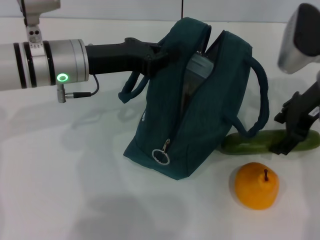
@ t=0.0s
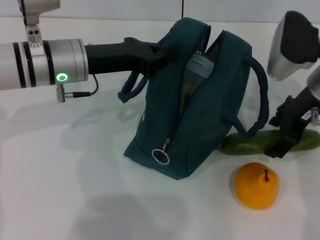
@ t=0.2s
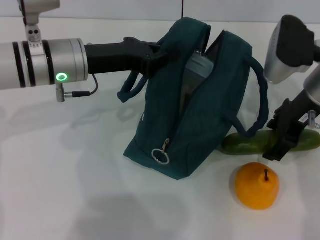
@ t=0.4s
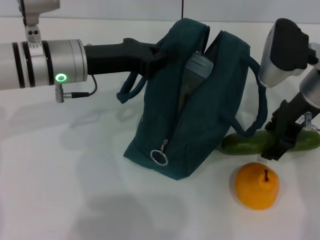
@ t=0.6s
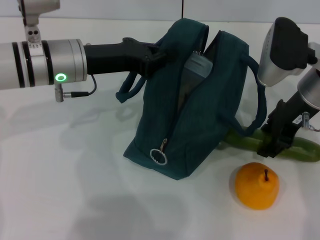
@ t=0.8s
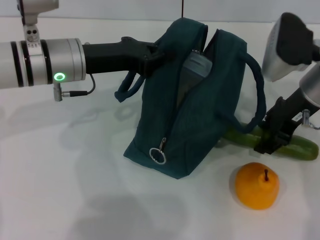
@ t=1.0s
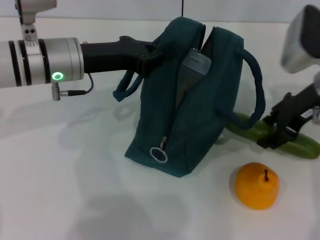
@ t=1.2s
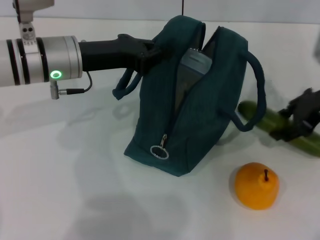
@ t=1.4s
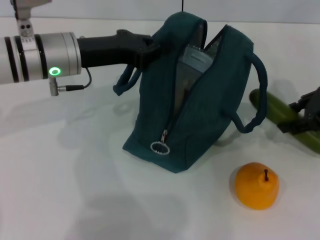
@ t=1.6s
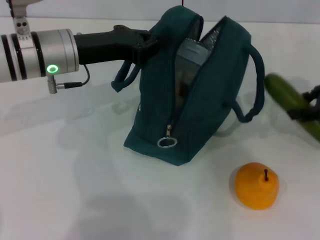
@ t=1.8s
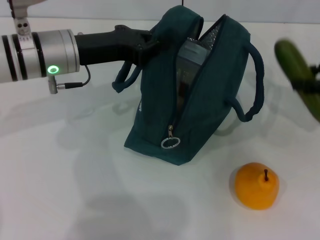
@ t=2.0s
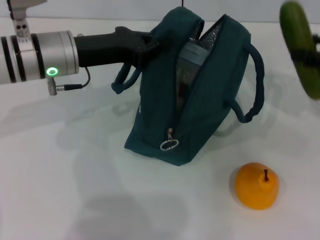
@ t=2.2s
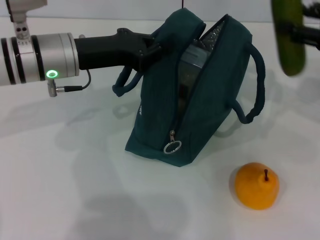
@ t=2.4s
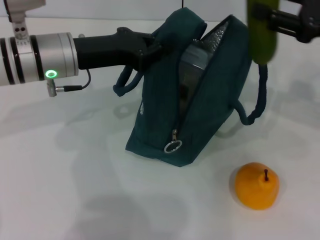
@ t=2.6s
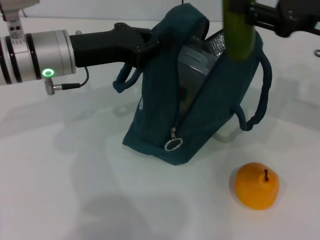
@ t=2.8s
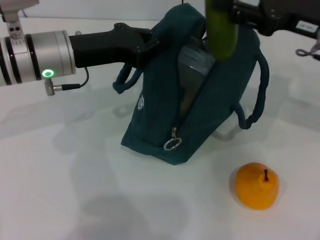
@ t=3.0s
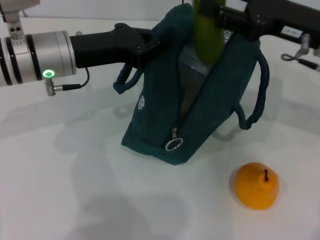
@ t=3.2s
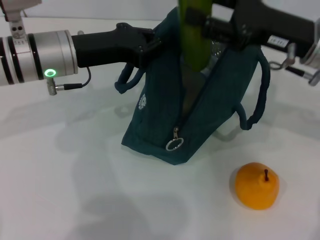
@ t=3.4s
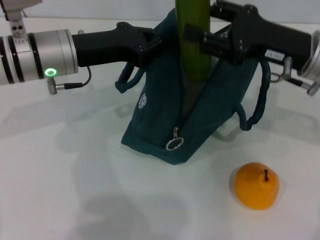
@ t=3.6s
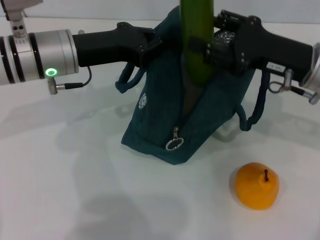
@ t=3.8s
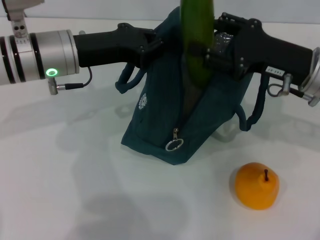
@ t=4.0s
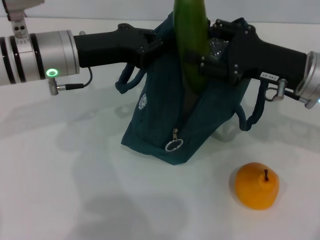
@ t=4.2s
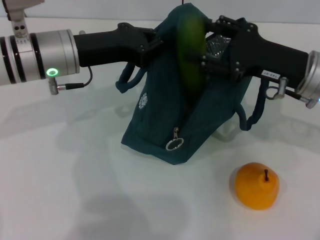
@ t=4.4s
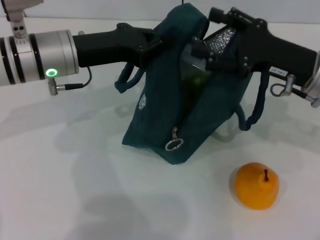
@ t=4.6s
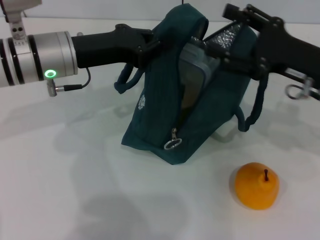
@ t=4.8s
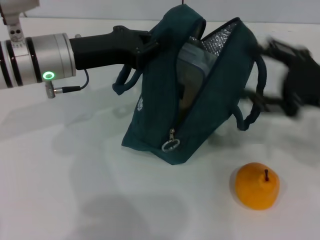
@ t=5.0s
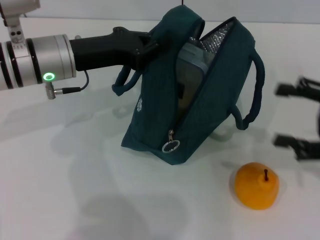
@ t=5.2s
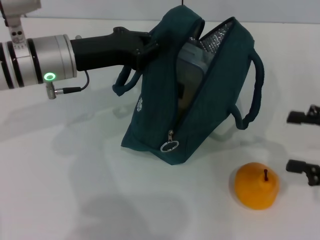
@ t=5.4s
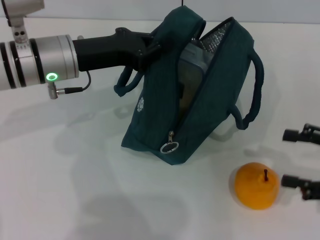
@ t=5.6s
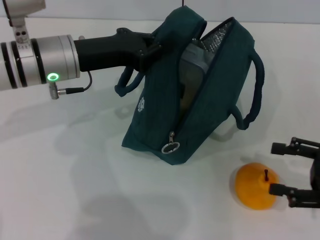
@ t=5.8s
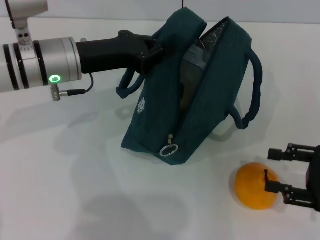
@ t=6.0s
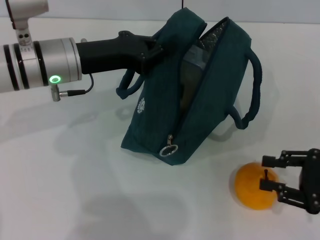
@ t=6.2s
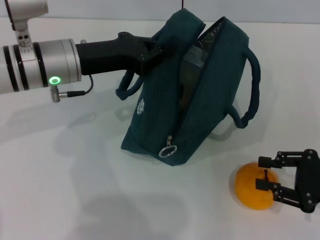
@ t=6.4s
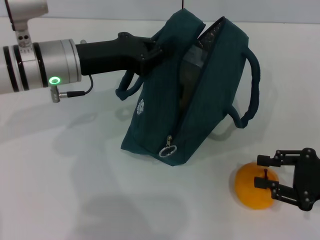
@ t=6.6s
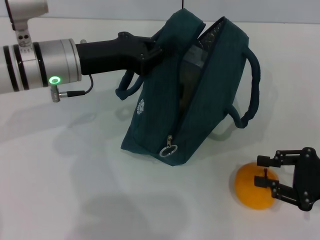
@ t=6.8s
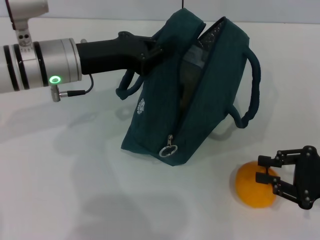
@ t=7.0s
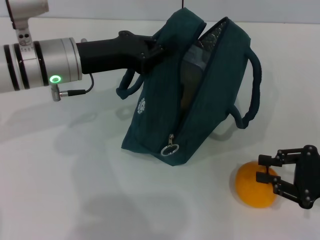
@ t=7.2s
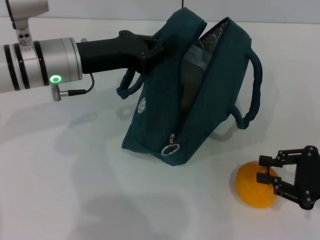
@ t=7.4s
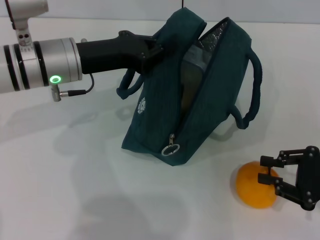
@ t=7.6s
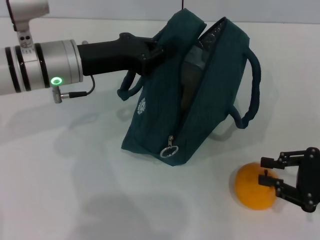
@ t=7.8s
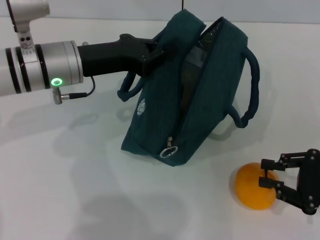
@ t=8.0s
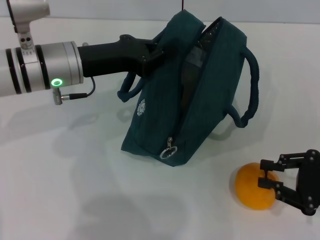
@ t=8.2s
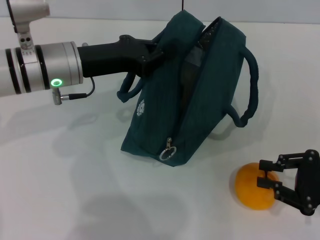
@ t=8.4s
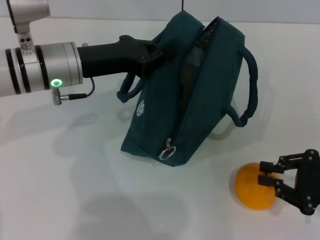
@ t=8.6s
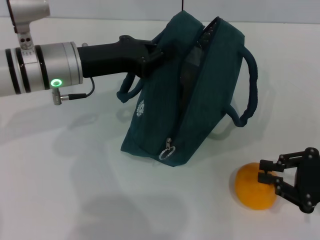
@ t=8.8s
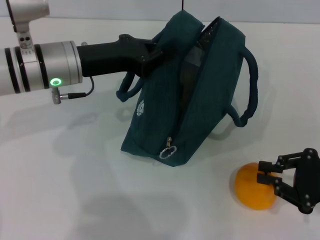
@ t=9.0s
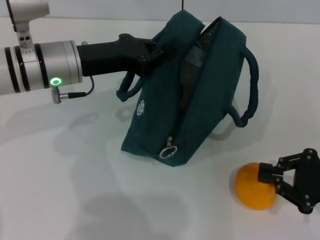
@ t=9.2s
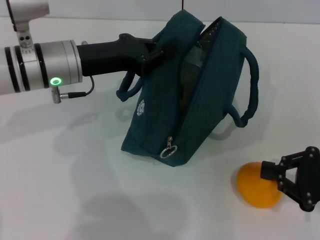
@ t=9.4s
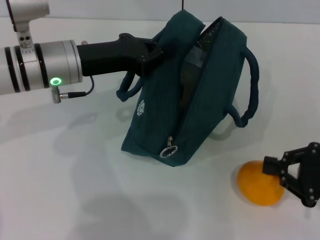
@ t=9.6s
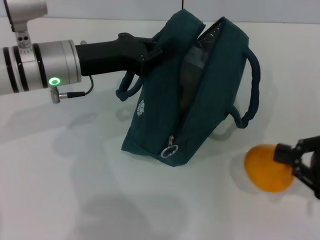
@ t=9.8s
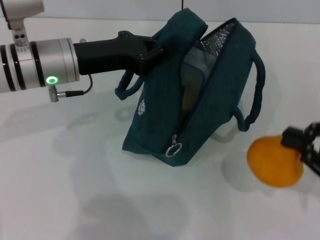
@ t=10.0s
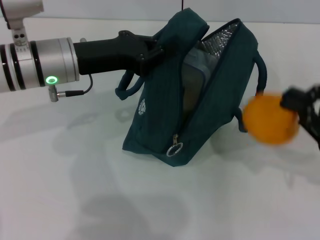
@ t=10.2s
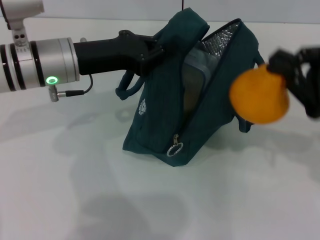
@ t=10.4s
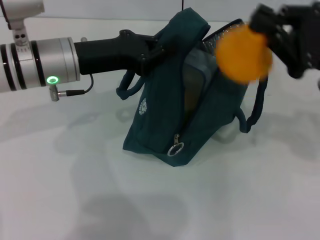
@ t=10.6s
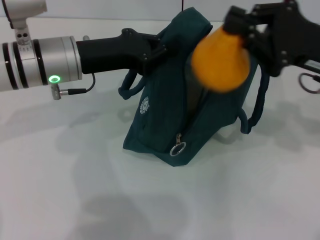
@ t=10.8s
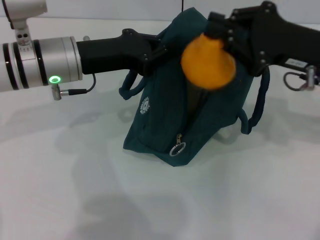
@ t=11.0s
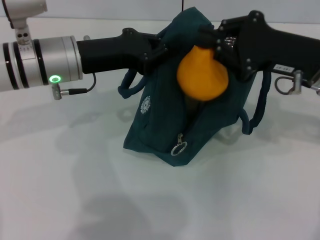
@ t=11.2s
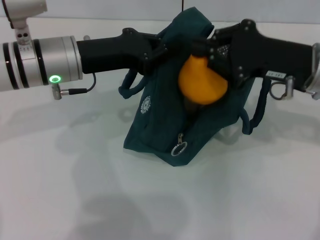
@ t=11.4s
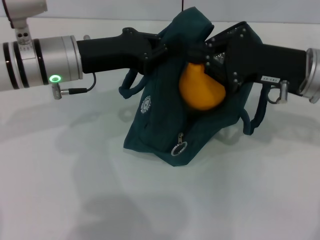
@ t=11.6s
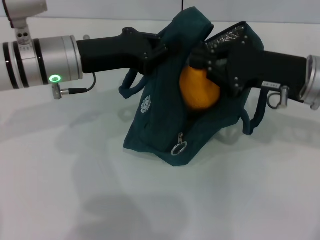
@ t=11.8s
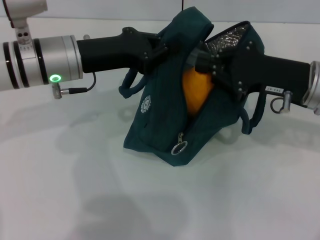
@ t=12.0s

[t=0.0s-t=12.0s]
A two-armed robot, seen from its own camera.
Step, t=1.0s to t=4.4s: Put the cucumber into the lunch bag with your right hand.
Step, t=4.8s to t=9.4s: Grab the pear with your right hand.
t=0.0s to t=1.6s: The right gripper travels to the right by about 5 cm.
t=1.6s to t=3.0s: The right gripper ends up roughly 5 cm from where it was.
t=3.0s to t=4.4s: The right gripper moves downward, about 5 cm.
t=4.4s to t=6.0s: The right gripper travels to the right, backward and downward by some 15 cm.
t=6.0s to t=7.6s: The right gripper closes up.
t=7.6s to t=9.0s: The two grippers keep their place.
t=9.0s to t=10.4s: The right gripper moves upward, roughly 10 cm.
t=10.4s to t=12.0s: The right gripper is displaced to the left and forward by about 10 cm.

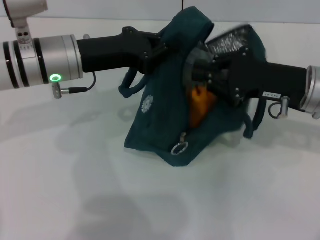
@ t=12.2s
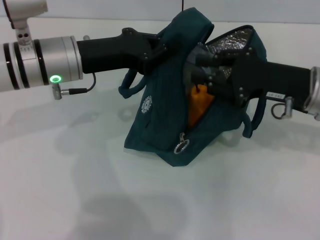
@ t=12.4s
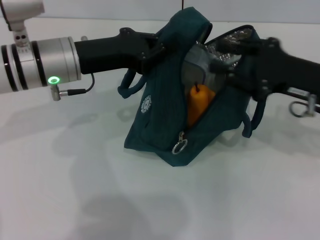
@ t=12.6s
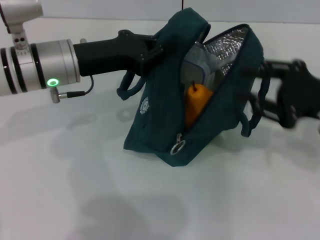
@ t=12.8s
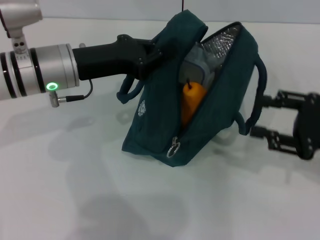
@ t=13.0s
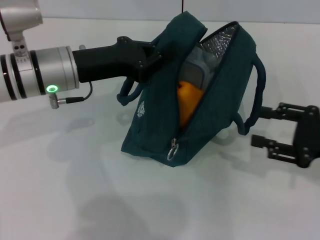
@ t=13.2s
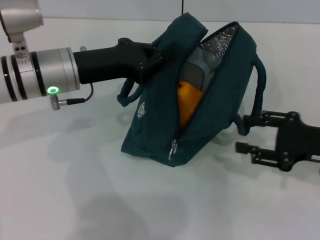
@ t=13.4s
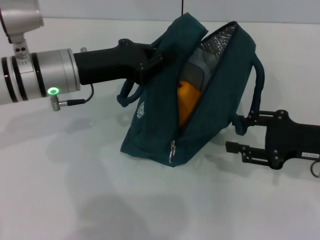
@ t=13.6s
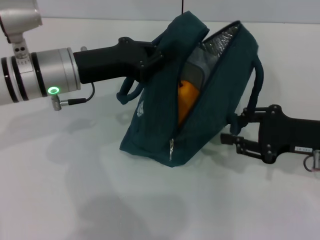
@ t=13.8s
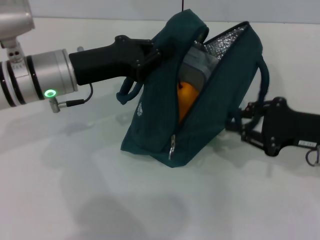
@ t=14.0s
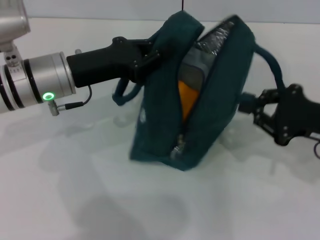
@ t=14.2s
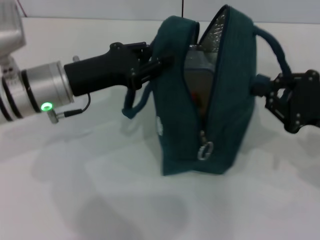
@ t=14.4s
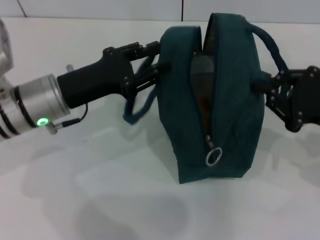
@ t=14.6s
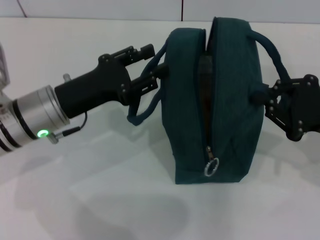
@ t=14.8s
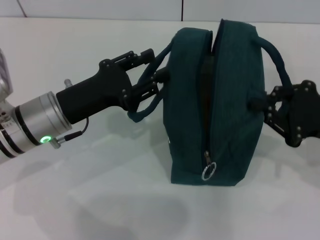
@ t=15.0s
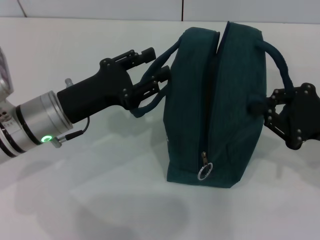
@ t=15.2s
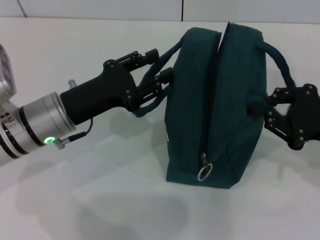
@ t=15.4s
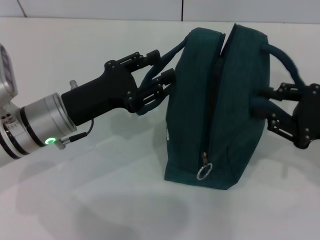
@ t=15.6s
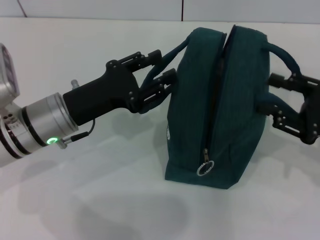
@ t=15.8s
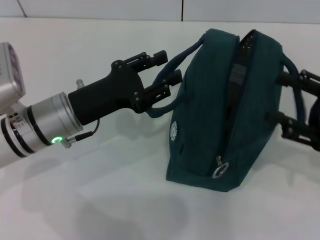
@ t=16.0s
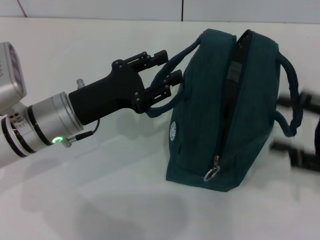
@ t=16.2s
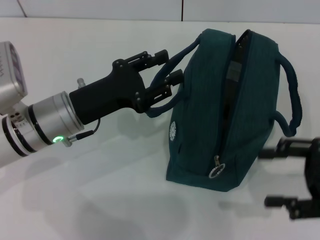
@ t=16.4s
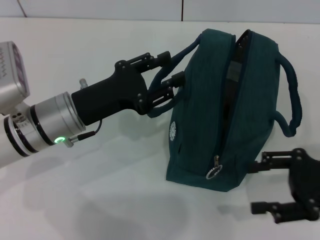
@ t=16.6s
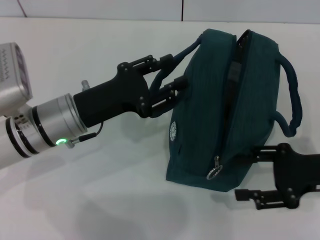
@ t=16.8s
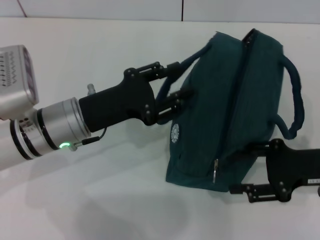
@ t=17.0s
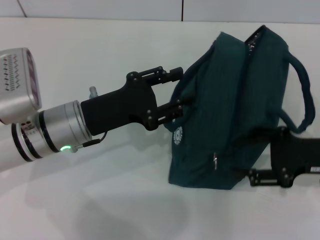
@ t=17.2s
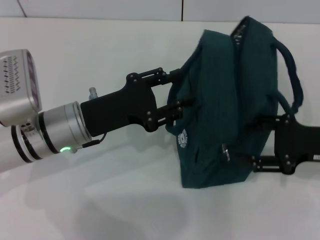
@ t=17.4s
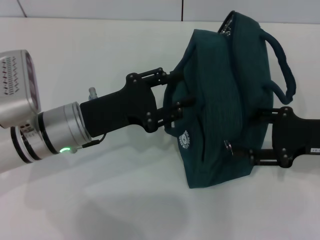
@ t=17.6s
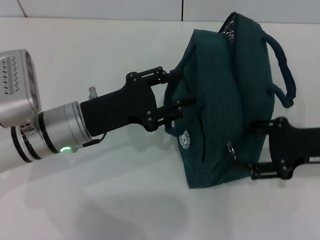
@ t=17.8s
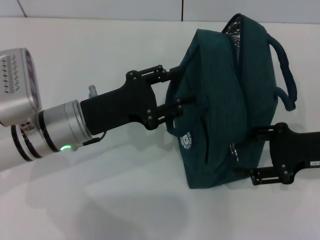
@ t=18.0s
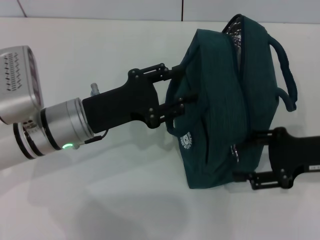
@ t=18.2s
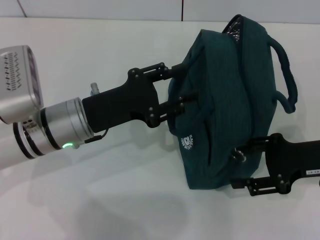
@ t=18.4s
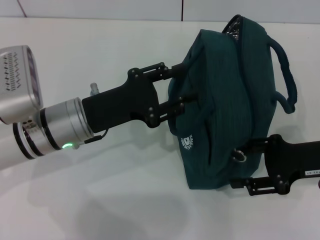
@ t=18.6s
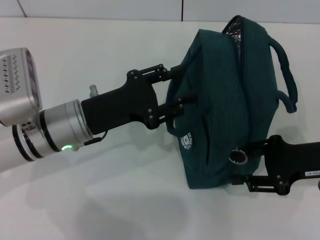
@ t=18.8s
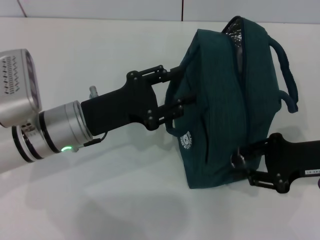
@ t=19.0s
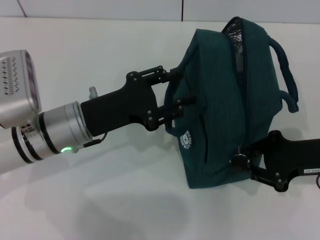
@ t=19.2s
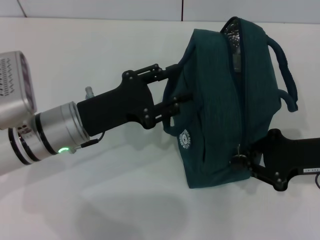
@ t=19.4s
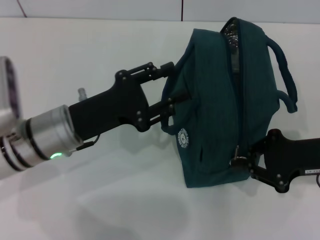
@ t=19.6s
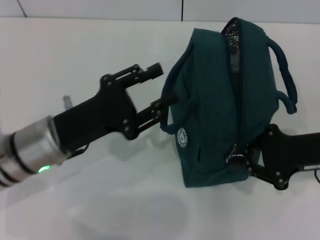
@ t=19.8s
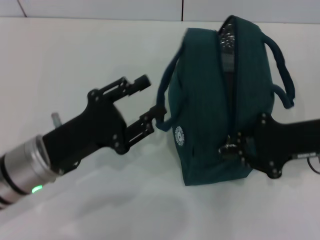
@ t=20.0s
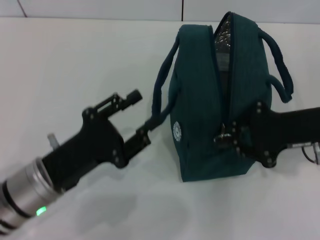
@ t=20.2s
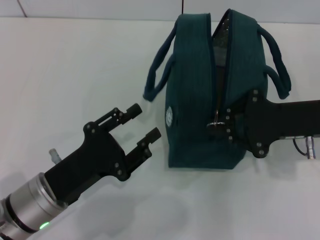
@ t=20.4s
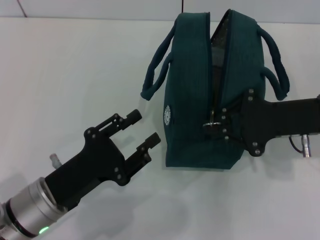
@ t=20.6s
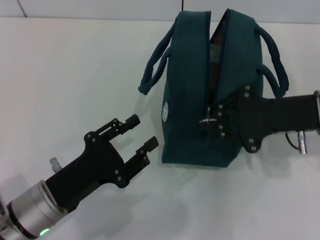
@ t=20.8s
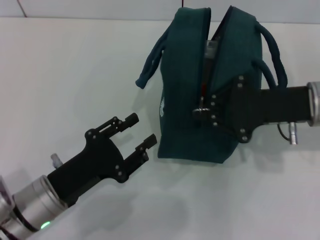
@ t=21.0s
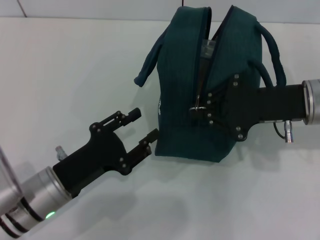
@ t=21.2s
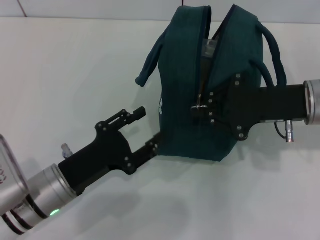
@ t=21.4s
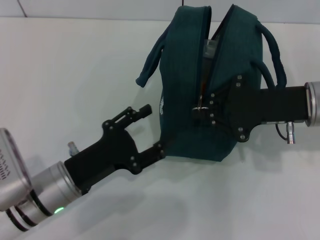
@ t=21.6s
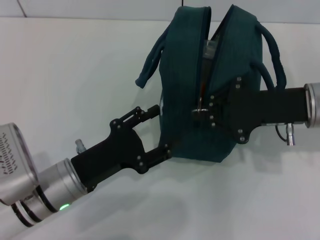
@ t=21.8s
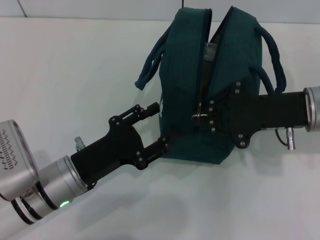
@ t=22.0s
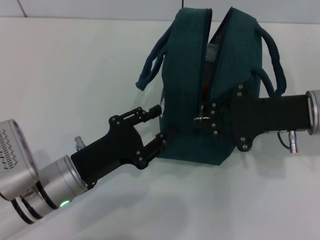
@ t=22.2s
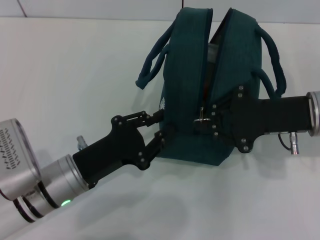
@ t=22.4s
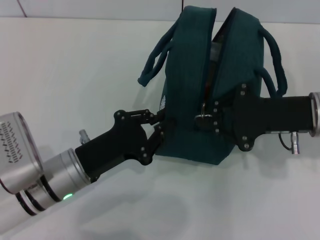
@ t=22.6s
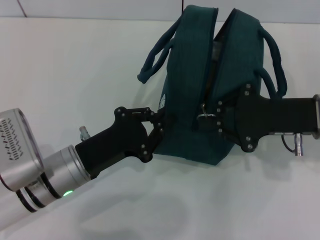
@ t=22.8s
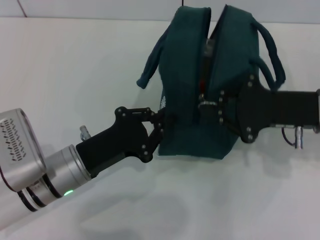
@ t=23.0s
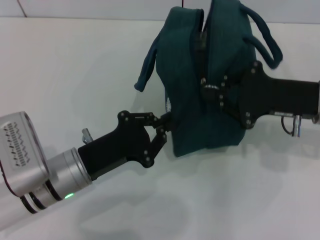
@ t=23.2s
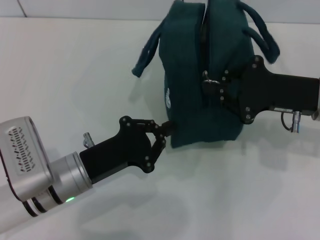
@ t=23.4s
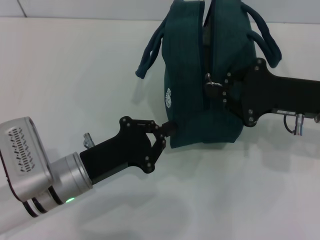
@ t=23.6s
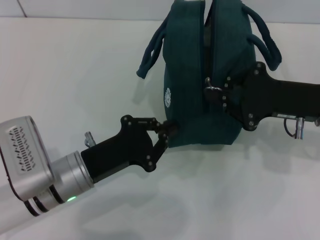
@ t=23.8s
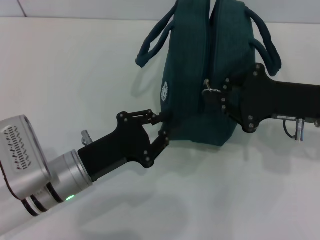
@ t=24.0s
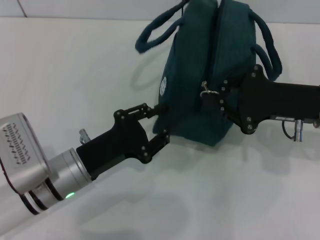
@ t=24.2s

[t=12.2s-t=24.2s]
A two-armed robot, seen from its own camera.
Step, t=12.6s to t=15.2s: Hold the lunch bag with your left hand.
Step, t=15.4s to t=16.0s: Hold the lunch bag with your right hand.
t=12.2s to t=13.8s: The right gripper opens up.
t=13.8s to t=15.2s: The left gripper is displaced backward by roughly 5 cm, and opens. The right gripper closes.
t=15.2s to t=16.6s: The right gripper opens its fingers.
t=18.2s to t=19.8s: The right gripper closes.
t=19.8s to t=21.2s: The right gripper shifts roughly 5 cm to the left; the left gripper goes approximately 5 cm downward.
t=21.2s to t=24.2s: The grippers stay close to where they were, moving slightly.
